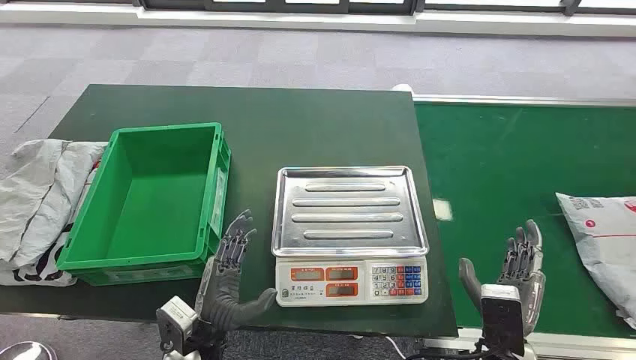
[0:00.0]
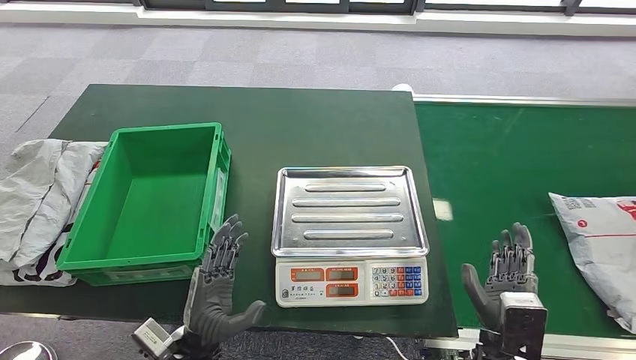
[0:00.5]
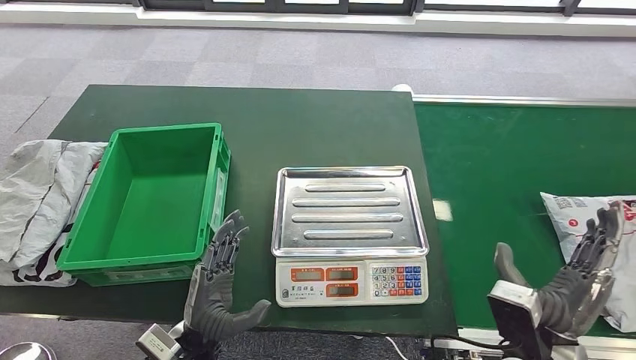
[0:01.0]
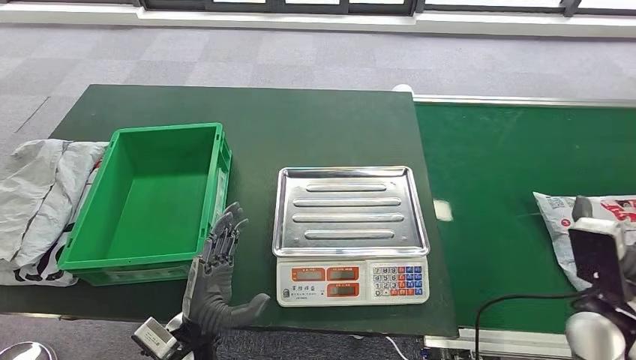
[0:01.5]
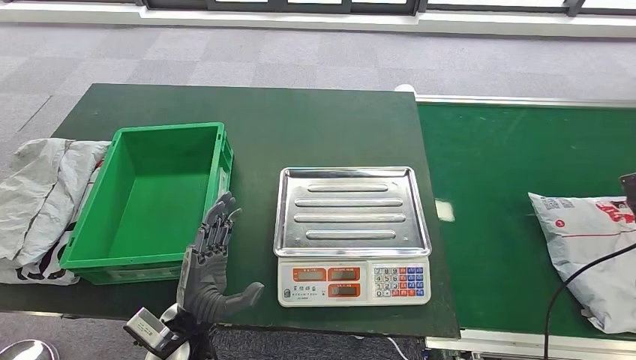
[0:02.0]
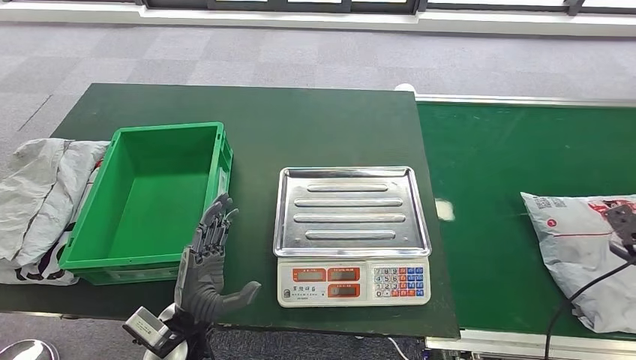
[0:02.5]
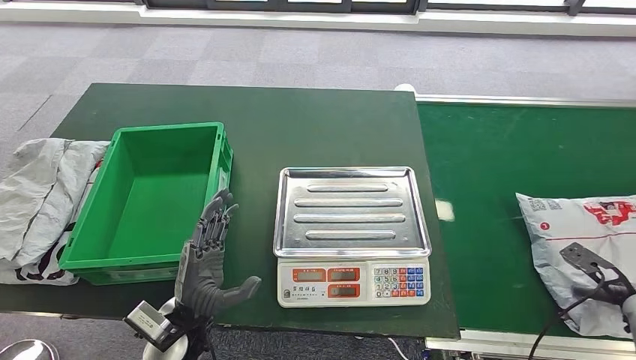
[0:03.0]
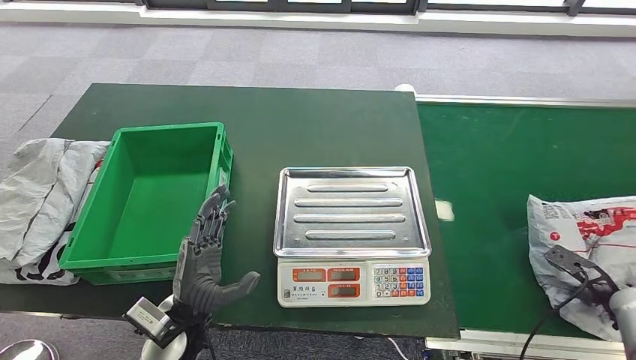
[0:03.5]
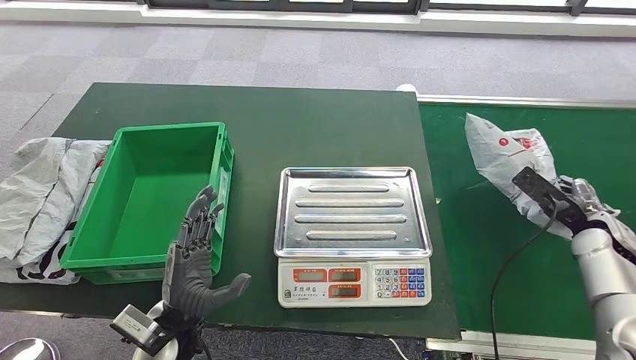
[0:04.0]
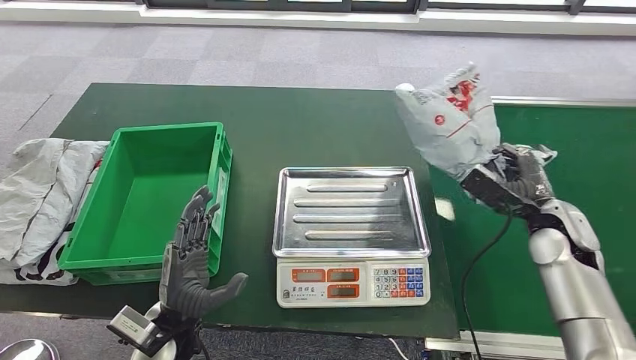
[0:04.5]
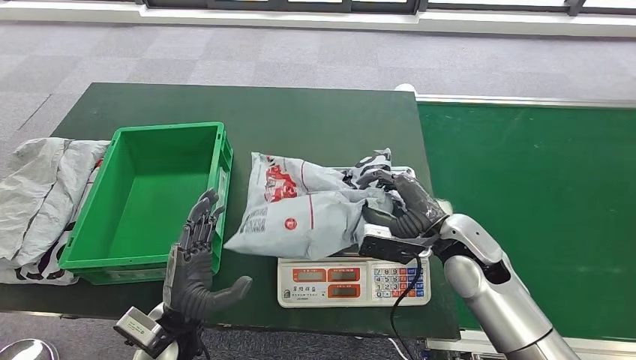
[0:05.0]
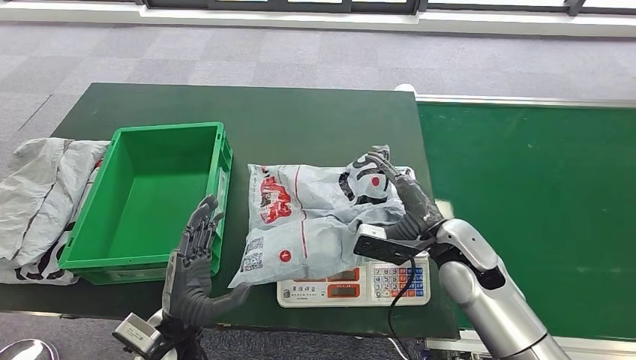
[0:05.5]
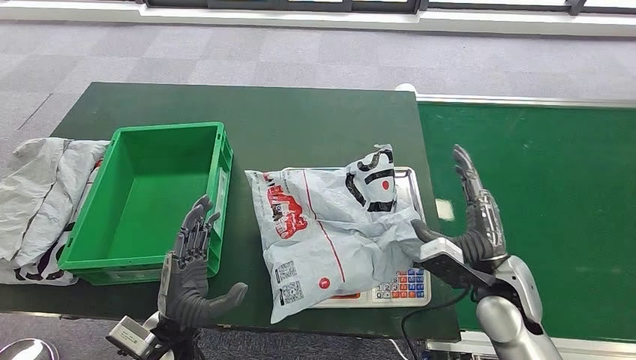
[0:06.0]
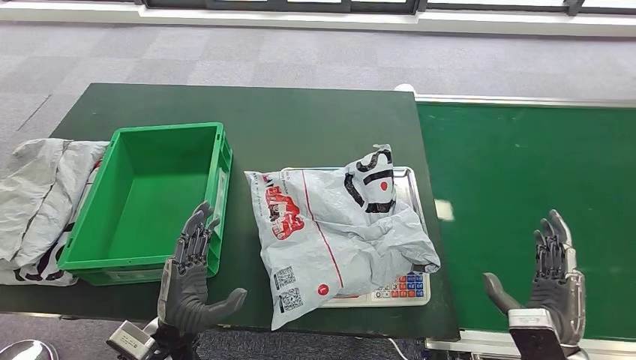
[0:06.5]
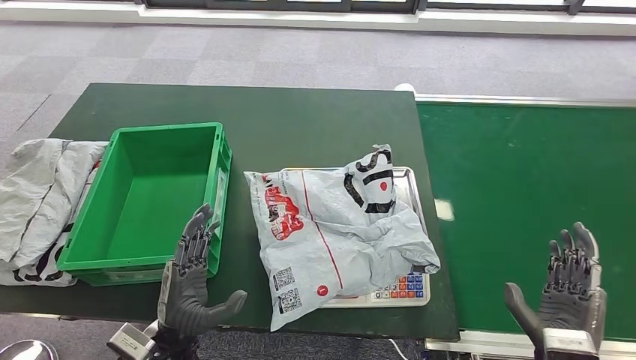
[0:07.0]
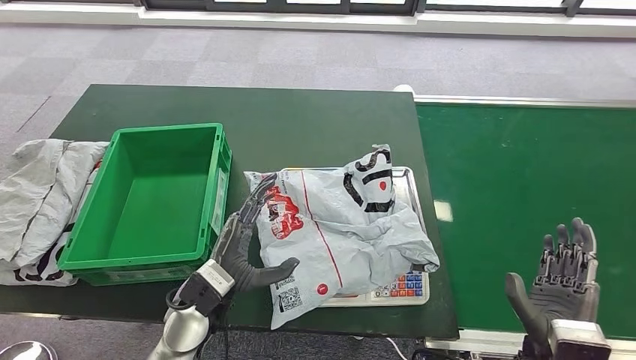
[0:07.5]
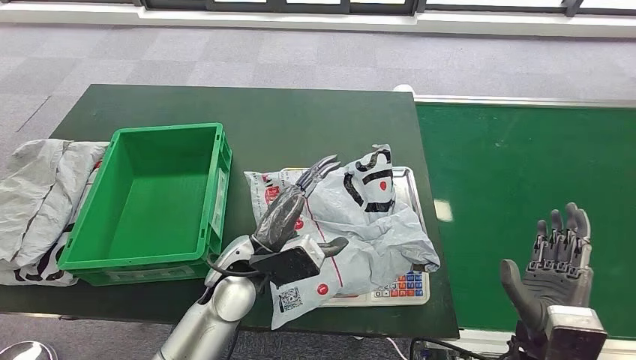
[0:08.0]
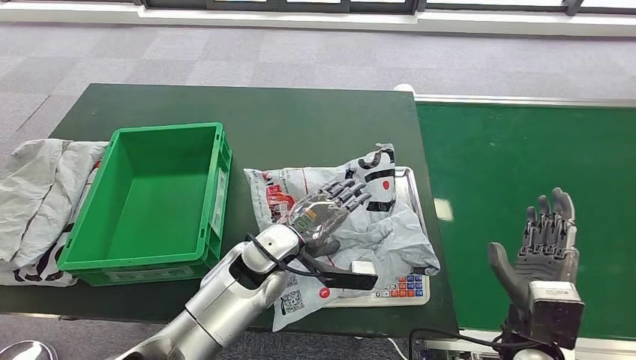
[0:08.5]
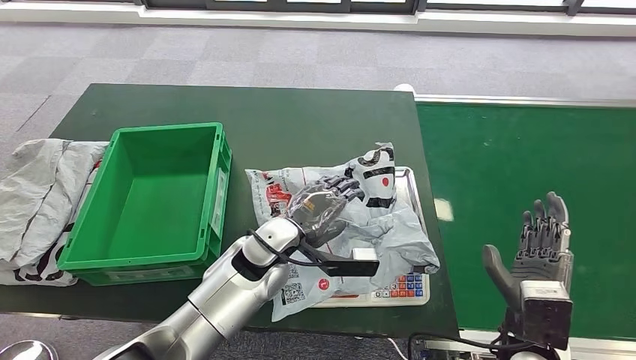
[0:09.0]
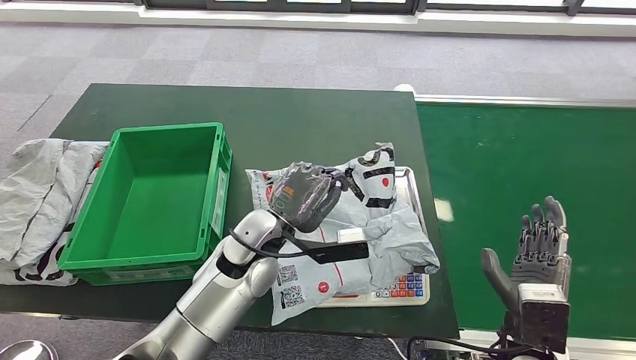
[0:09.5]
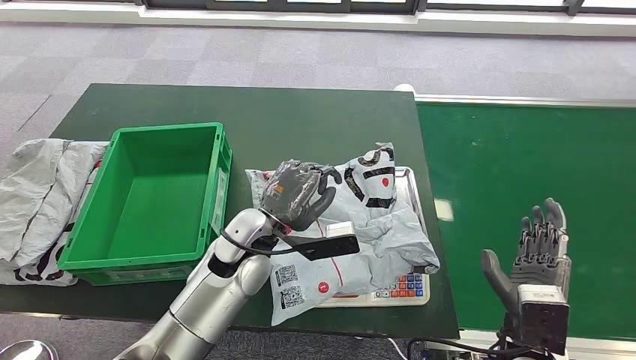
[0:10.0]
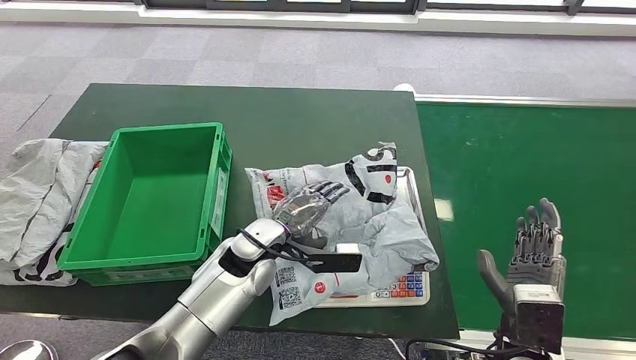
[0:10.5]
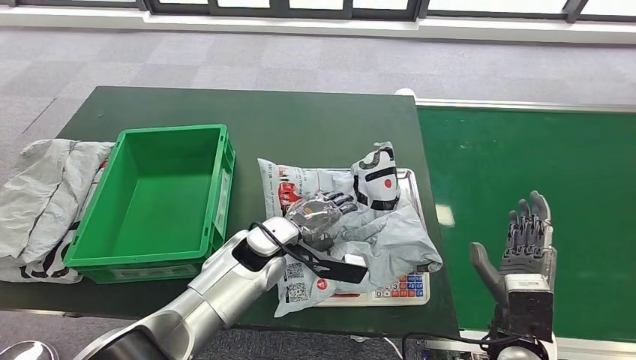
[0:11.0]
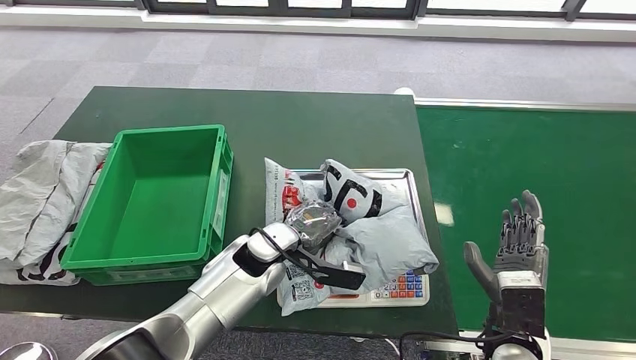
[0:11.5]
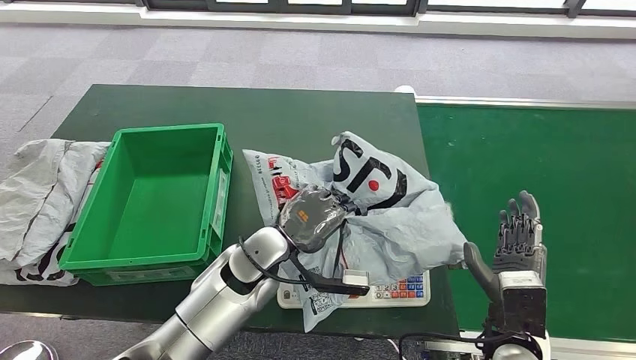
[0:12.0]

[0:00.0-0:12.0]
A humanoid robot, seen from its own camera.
Step, 0:00.0 to 0:04.0: Take the parcel off the conveyor belt.
Step, 0:04.5 to 0:06.5: Place the parcel onto the inbound machine.
0:02.0 to 0:04.0: The right hand moves forward and to the left, about 10 cm.

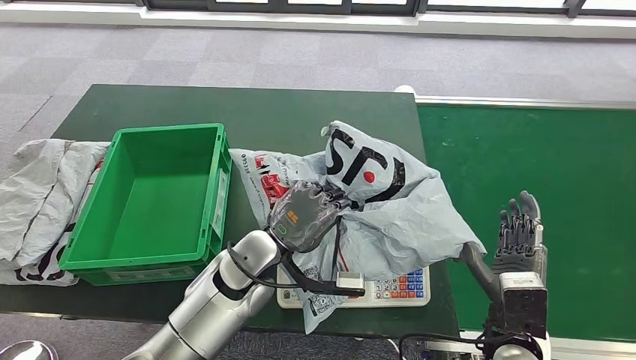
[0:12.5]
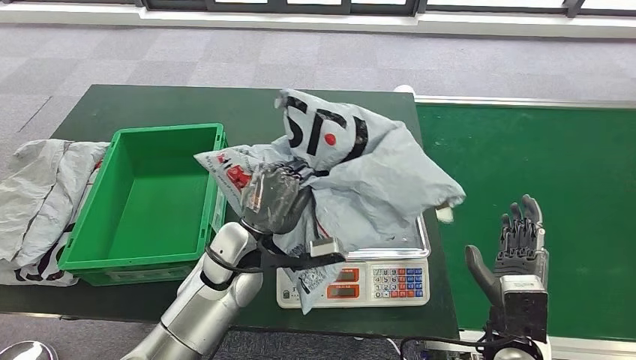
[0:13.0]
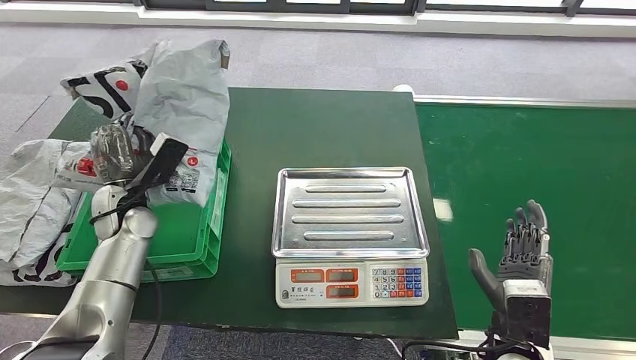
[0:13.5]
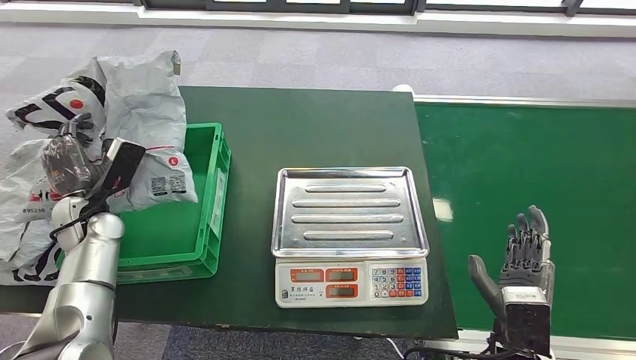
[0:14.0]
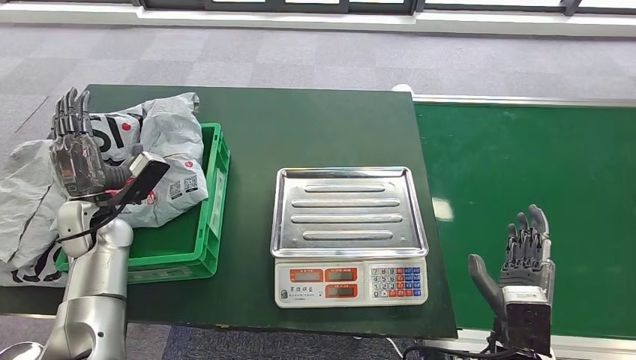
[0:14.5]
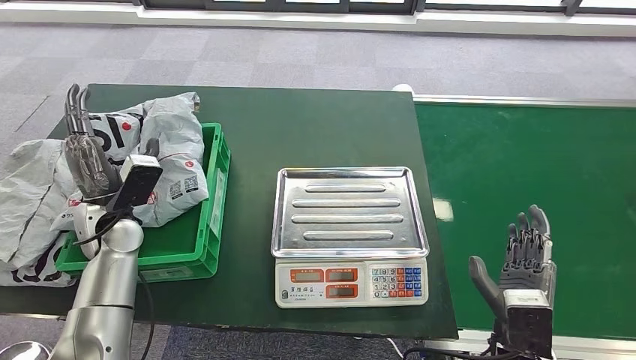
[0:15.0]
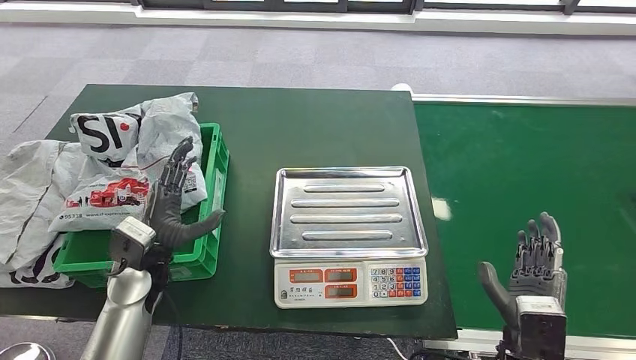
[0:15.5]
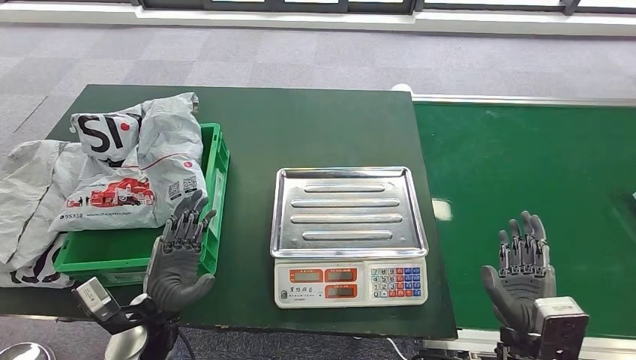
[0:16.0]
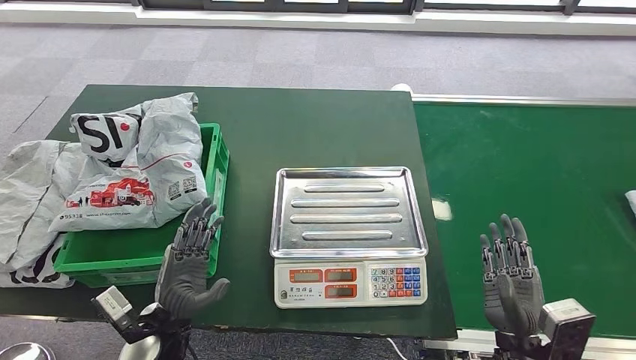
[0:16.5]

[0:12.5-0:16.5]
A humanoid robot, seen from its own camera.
Step, 0:13.5 to 0:16.5: Put the parcel inside the courier box.
0:14.5 to 0:16.5: The left hand heads backward, to the right and downward, covering approximately 25 cm.

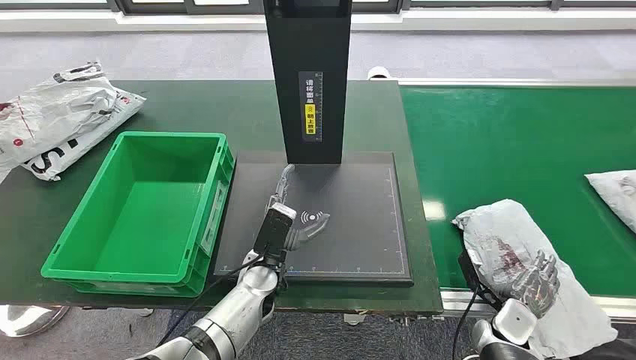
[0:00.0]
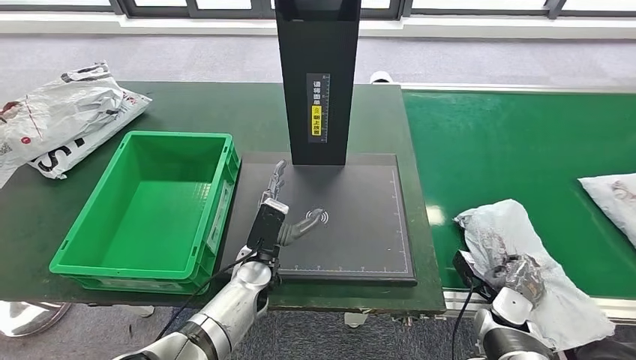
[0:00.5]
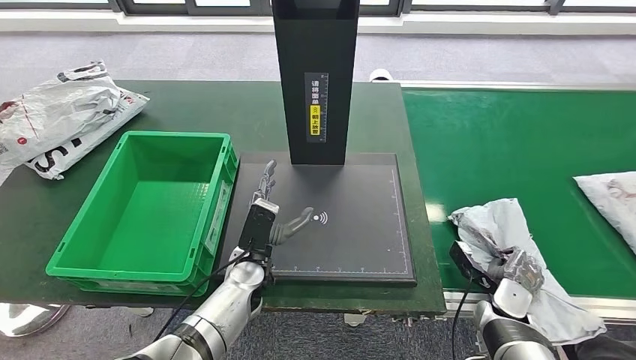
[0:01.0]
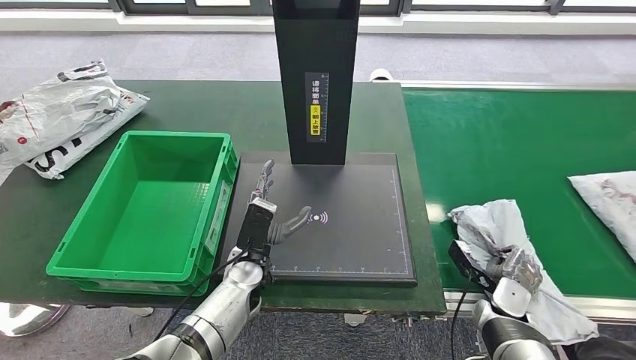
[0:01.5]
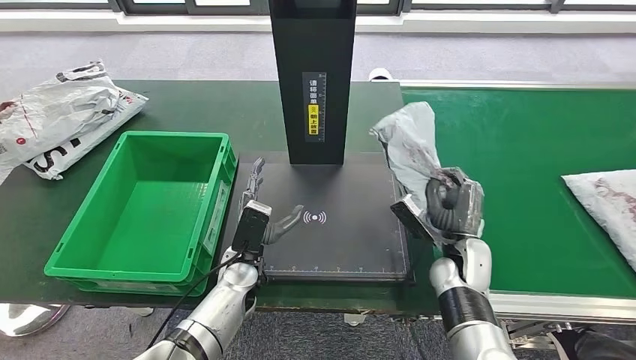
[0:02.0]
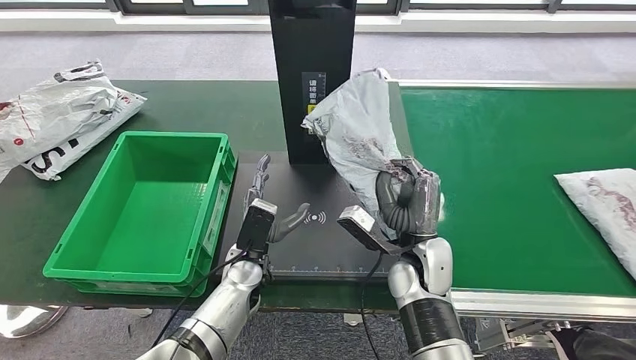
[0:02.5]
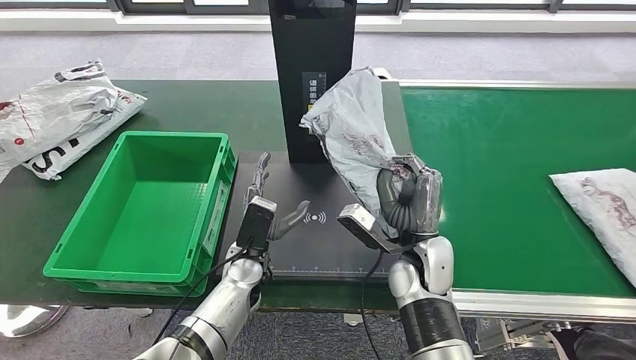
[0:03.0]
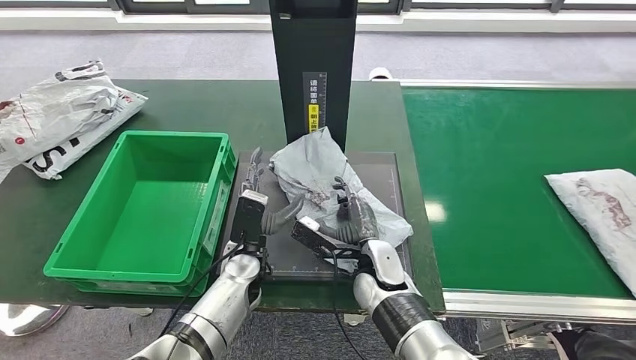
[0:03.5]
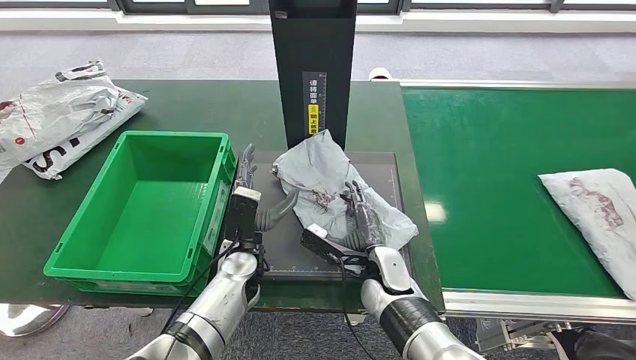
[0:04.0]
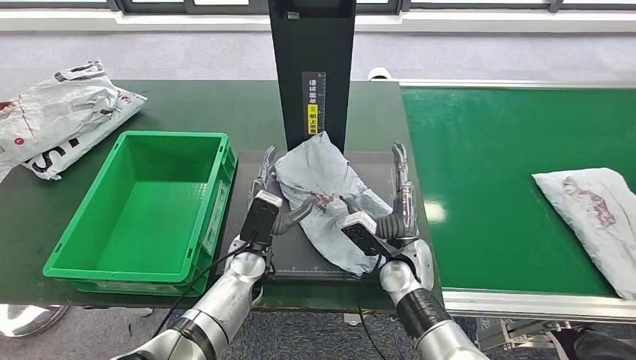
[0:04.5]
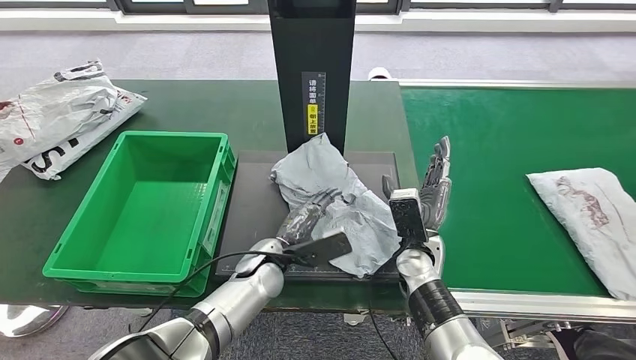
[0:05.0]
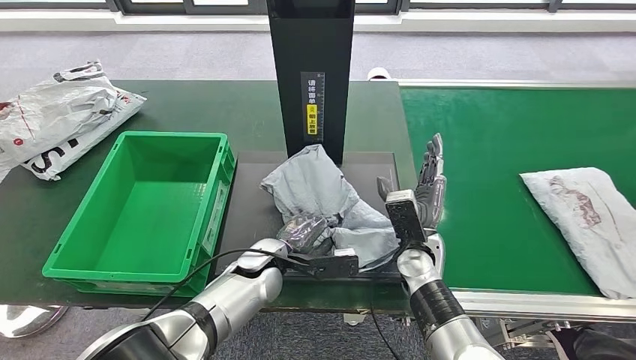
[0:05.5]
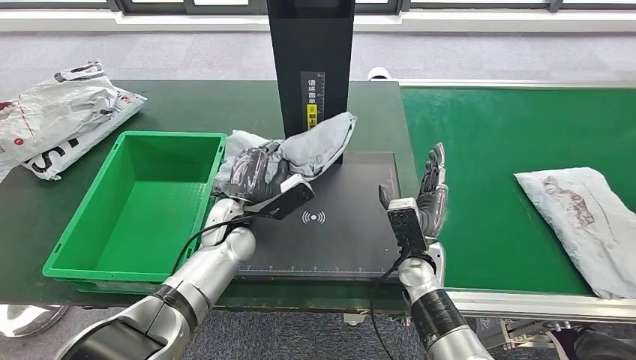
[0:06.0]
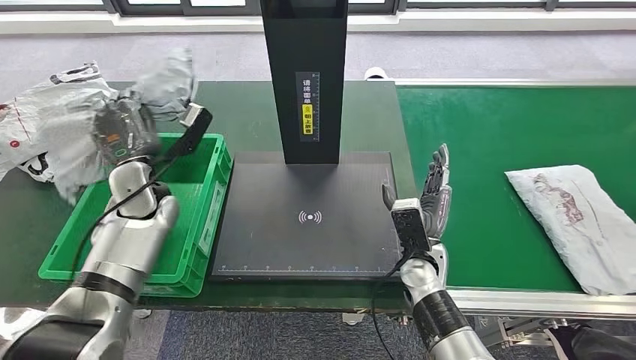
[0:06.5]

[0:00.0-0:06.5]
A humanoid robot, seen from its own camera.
Step, 0:00.0 to 0:02.0: Take the parcel off the conveyor belt.
Step, 0:02.5 to 0:03.5: Place the parcel onto the inbound machine.
Step, 0:04.0 to 0:06.0: Pick up the parcel from the inbound machine.
